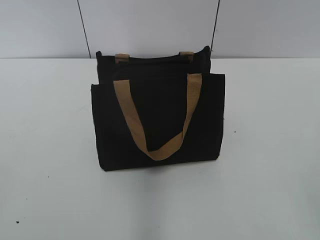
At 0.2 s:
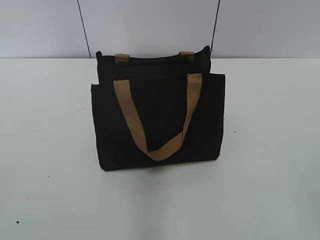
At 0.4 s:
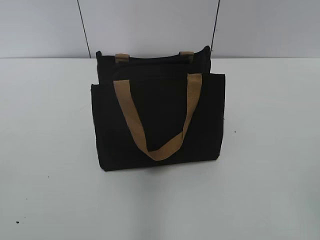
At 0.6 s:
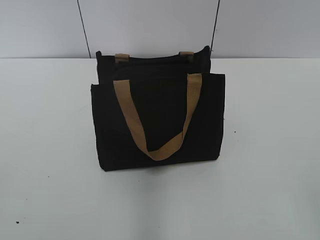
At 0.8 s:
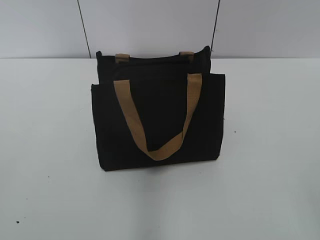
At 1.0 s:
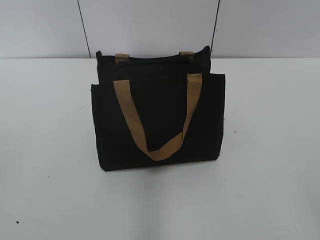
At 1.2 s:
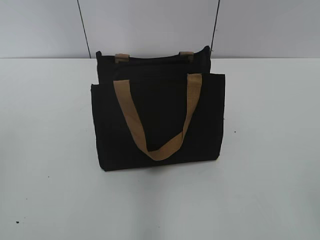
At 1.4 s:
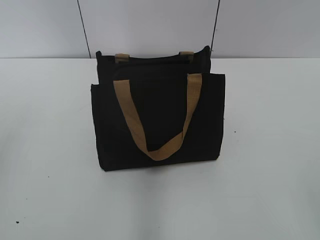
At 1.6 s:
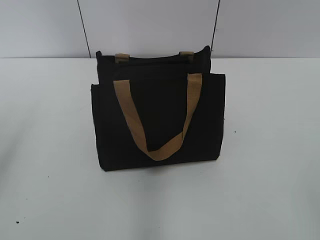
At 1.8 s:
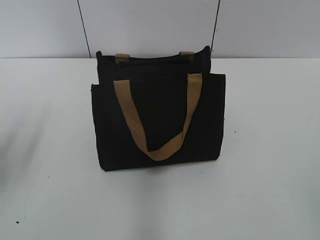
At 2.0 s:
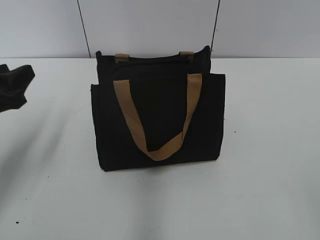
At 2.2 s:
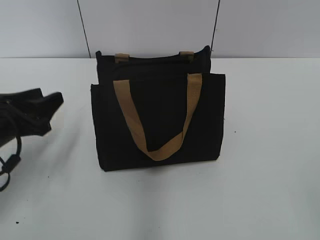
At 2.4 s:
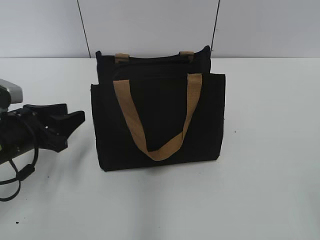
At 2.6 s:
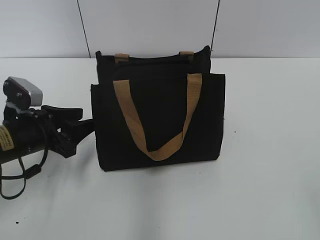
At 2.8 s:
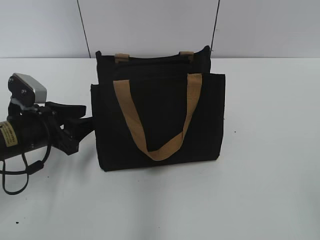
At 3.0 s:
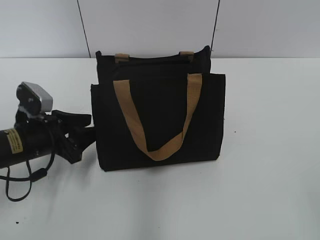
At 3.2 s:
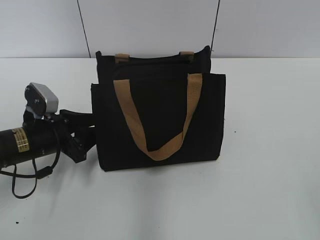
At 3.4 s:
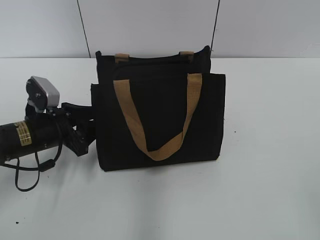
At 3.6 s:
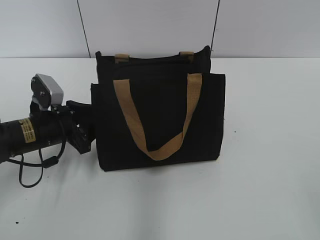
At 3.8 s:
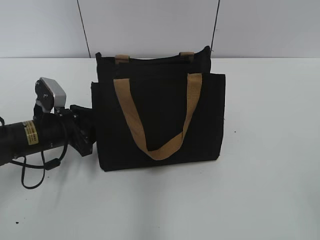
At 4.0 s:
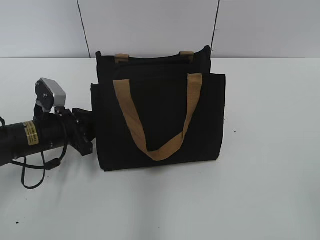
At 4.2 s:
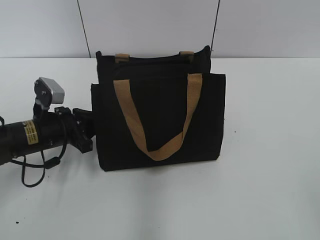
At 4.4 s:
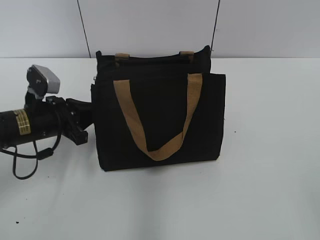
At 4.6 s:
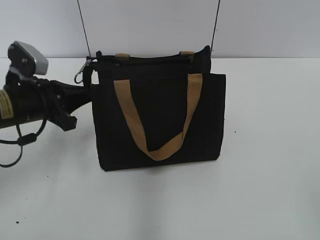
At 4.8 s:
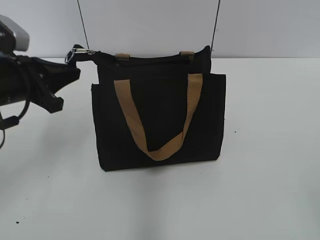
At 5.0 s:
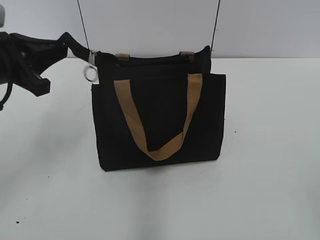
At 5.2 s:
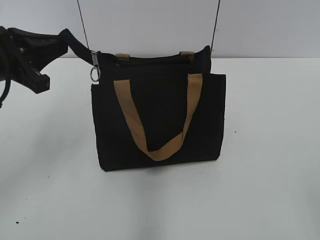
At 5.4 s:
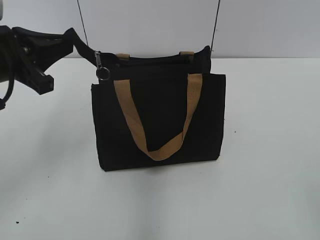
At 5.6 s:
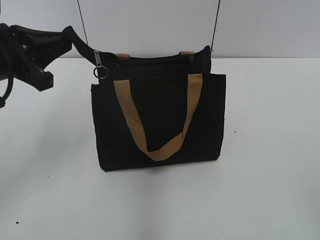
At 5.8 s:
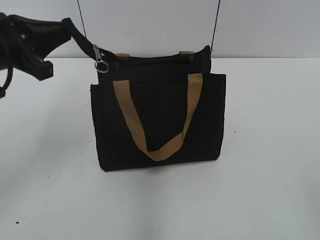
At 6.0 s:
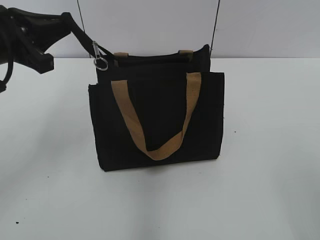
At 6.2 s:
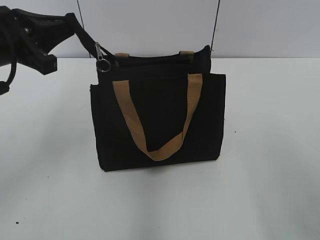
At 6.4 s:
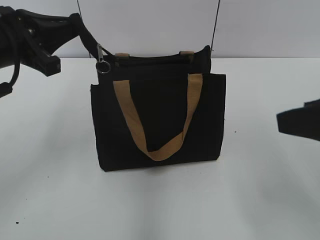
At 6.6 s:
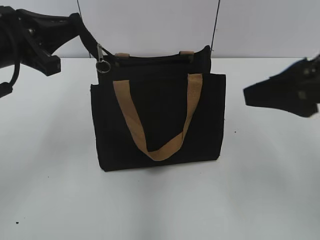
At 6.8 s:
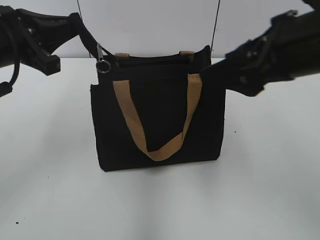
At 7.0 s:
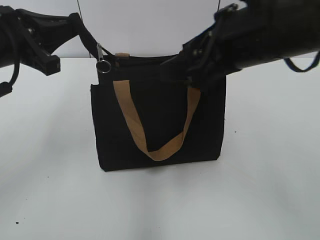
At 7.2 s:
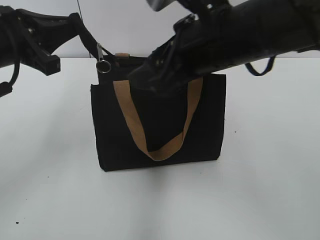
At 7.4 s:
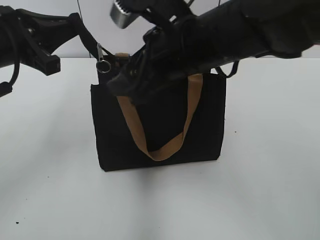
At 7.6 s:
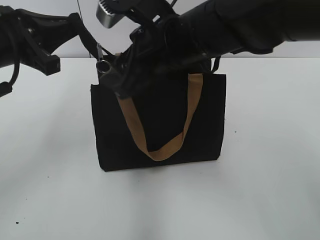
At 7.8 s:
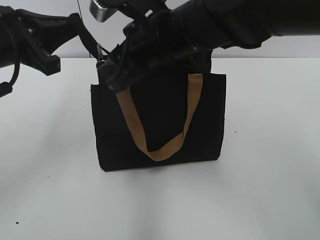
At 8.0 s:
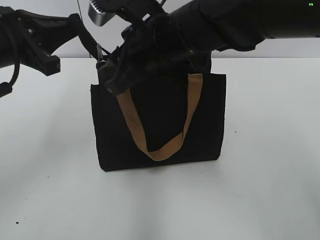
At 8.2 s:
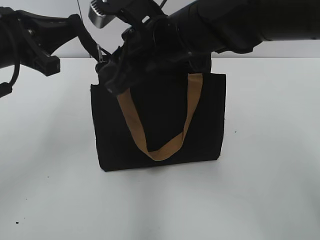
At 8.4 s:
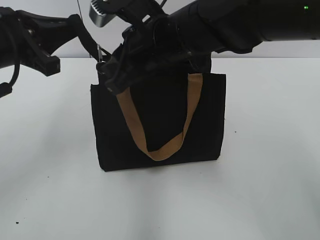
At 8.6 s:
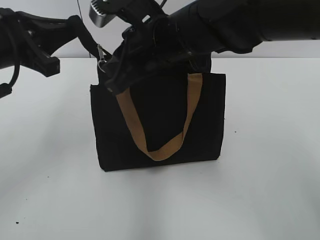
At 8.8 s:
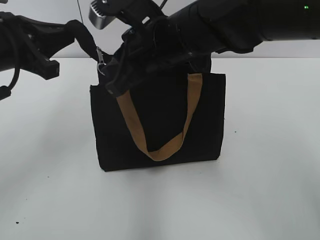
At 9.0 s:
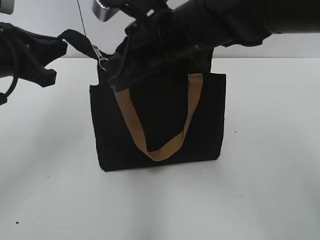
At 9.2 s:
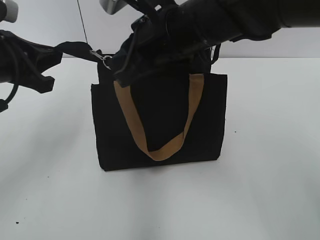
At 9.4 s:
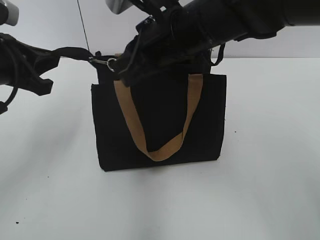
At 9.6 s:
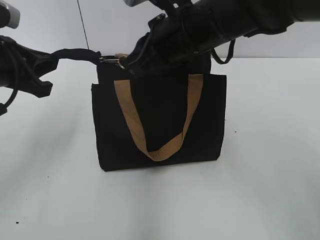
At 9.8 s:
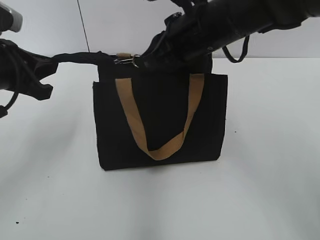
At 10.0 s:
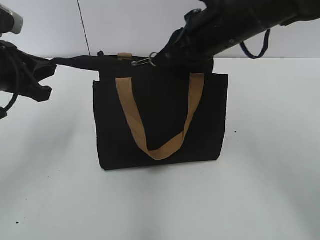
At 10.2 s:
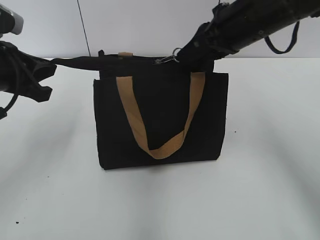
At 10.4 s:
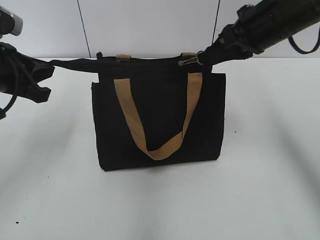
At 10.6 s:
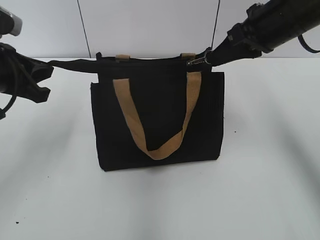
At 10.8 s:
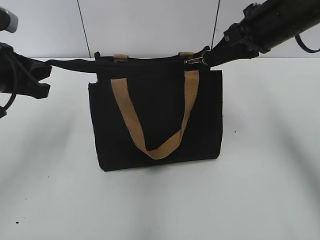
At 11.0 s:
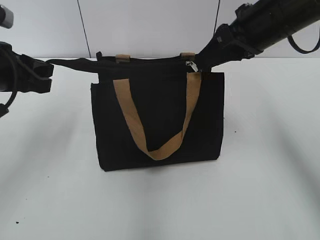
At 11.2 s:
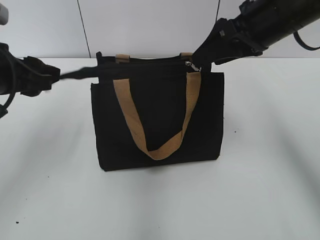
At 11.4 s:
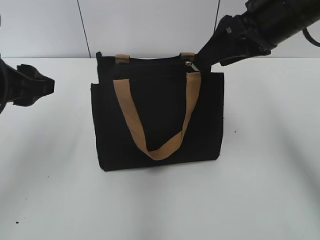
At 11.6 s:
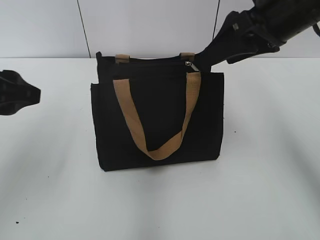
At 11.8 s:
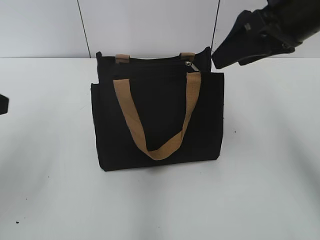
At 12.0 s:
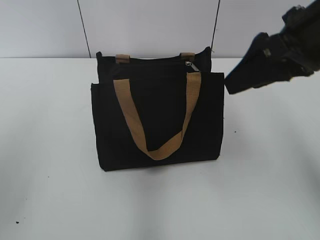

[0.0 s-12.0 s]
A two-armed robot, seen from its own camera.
Step, 0.0 to 11.0 s: Zip up the bag with your right hand.
Step, 11.2 to 11.4 s: Grab the zipper with your left hand.
1.6 to 3.0 s: The left gripper travels downward, forward and to the right by about 25 cm.
3.0 to 4.4 s: The left gripper closes.
4.4 to 6.0 s: The left gripper heads upward, covering roughly 20 cm.
6.0 to 7.6 s: The right gripper shifts roughly 35 cm forward and to the left.
7.6 to 9.0 s: The right gripper closes its fingers.
9.0 to 10.4 s: The right gripper travels to the right by approximately 15 cm.
10.4 to 12.0 s: The right gripper travels backward by roughly 5 cm, and opens. Meanwhile the left gripper is displaced backward by some 10 cm, and opens its fingers.

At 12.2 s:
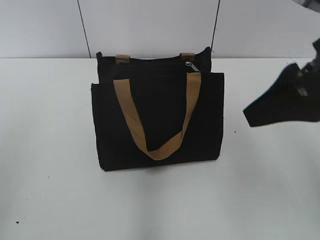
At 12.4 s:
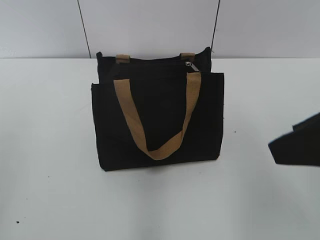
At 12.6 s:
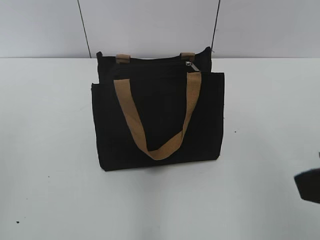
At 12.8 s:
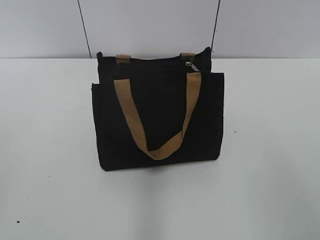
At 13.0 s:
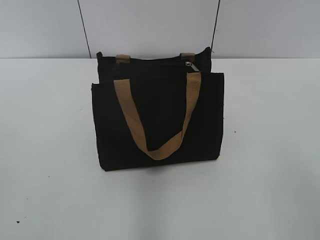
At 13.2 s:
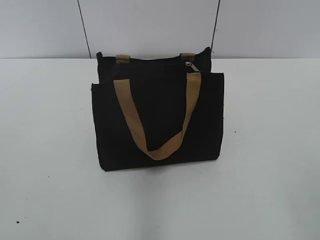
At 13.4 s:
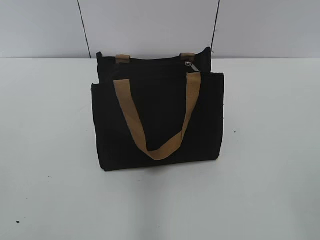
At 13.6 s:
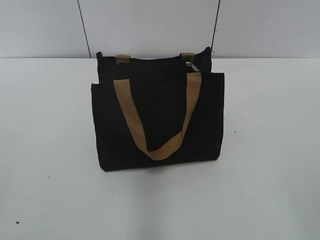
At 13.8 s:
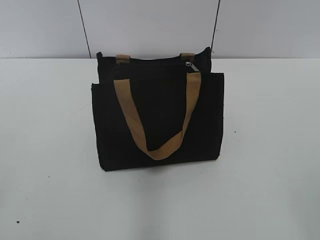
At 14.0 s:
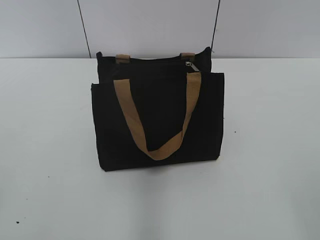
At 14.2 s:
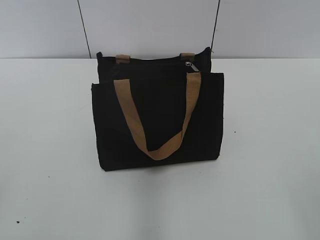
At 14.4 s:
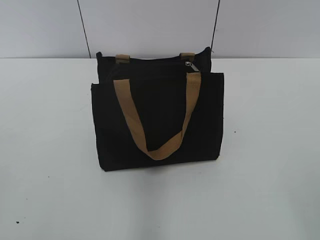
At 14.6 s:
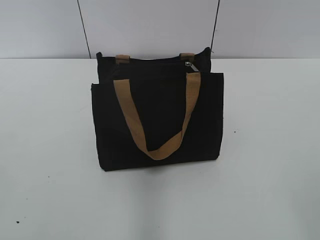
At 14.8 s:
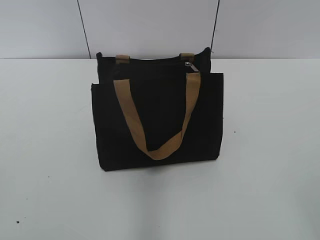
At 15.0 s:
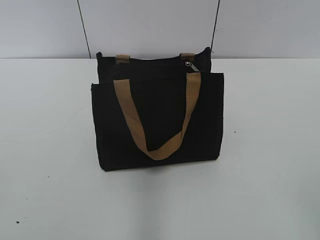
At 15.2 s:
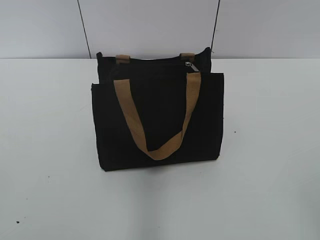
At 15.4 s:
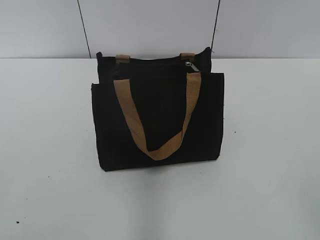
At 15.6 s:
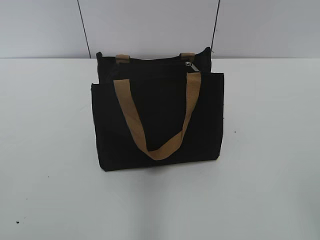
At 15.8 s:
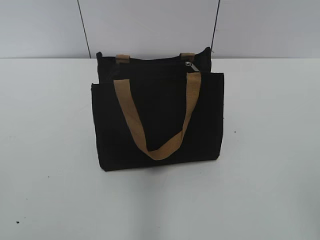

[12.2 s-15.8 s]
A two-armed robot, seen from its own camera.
12.2 to 14.0 s: The right gripper goes about 25 cm backward.
